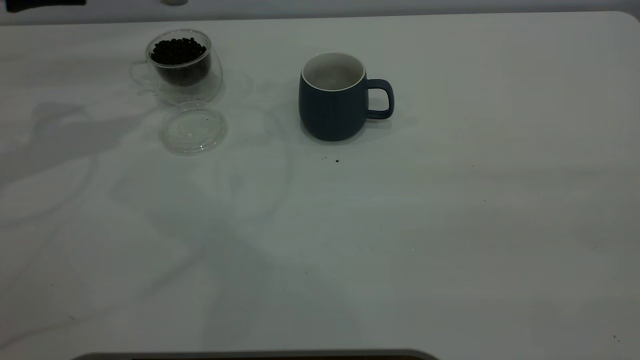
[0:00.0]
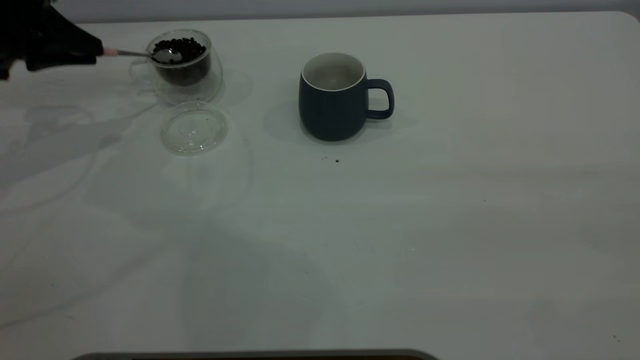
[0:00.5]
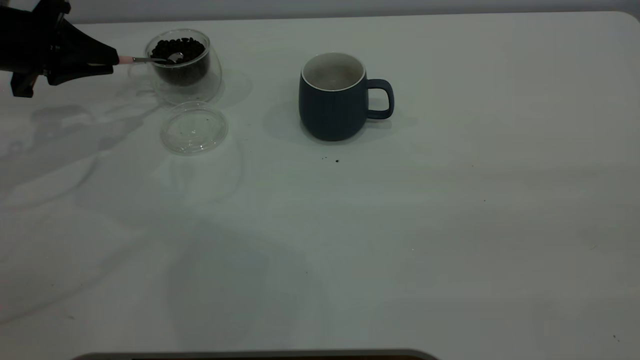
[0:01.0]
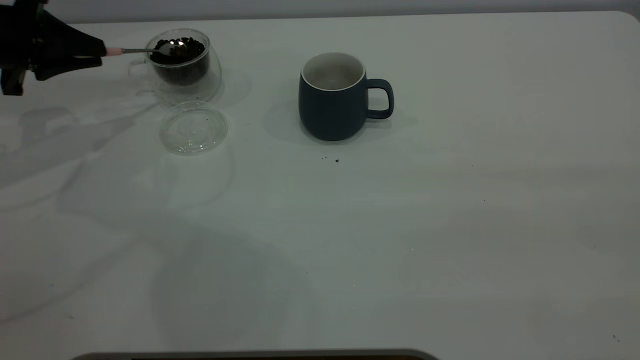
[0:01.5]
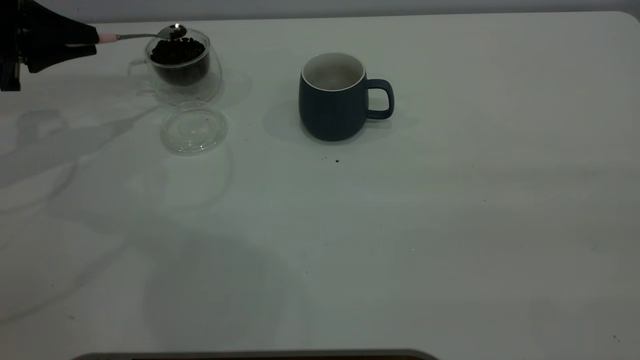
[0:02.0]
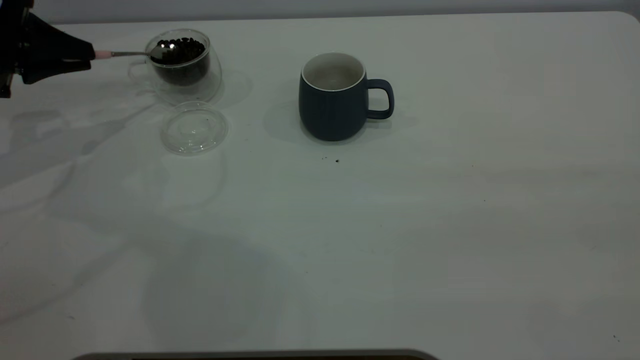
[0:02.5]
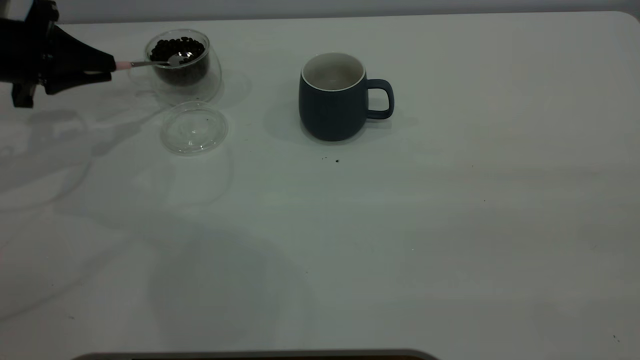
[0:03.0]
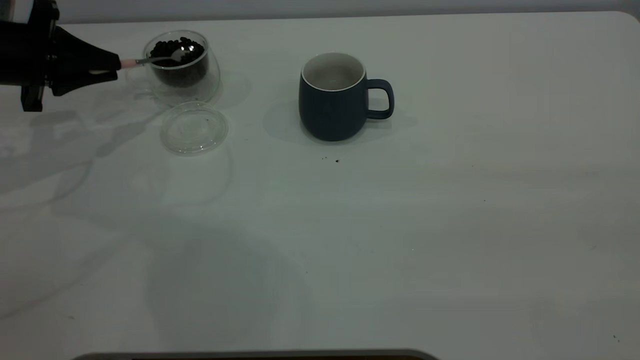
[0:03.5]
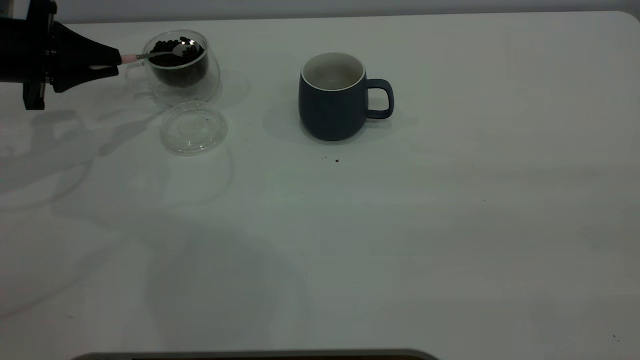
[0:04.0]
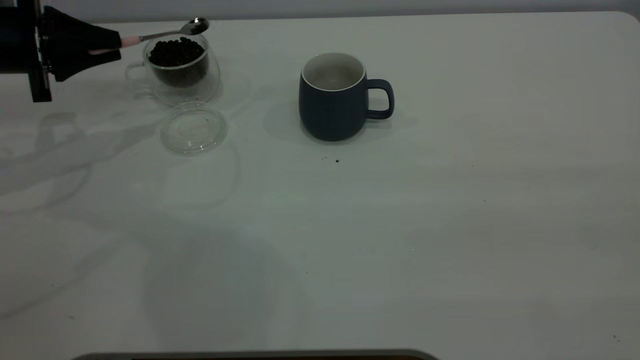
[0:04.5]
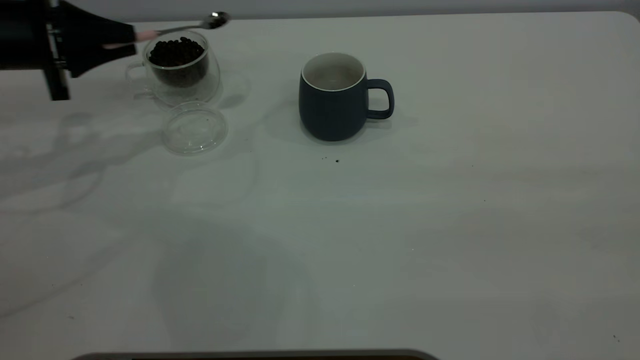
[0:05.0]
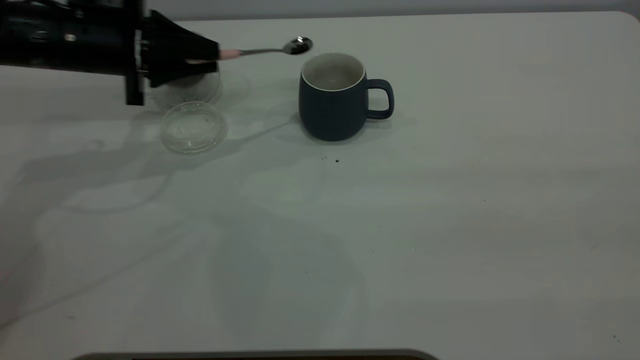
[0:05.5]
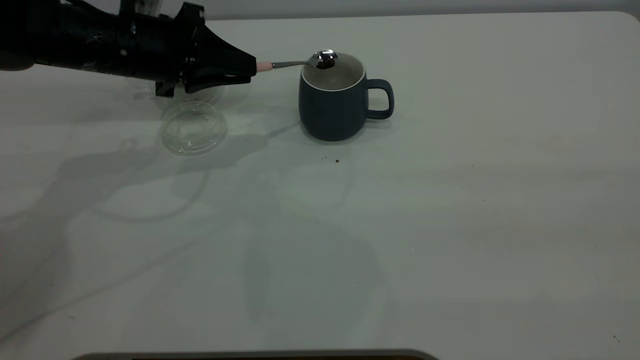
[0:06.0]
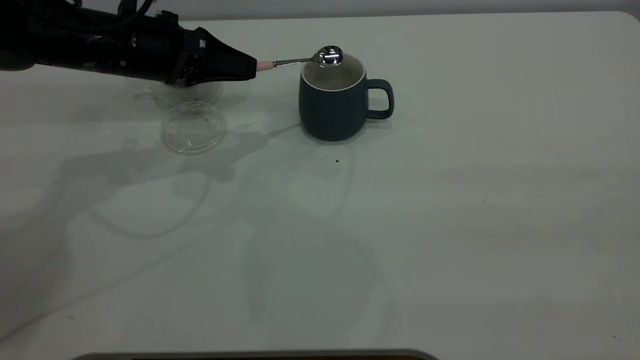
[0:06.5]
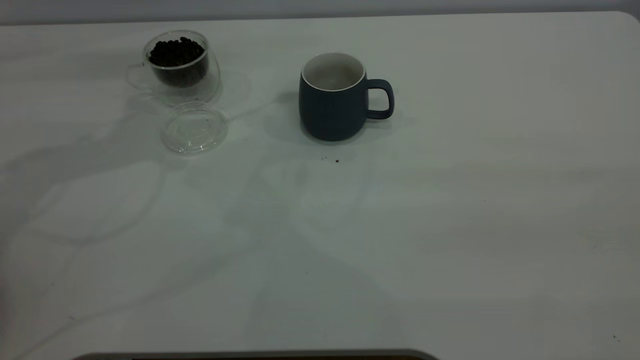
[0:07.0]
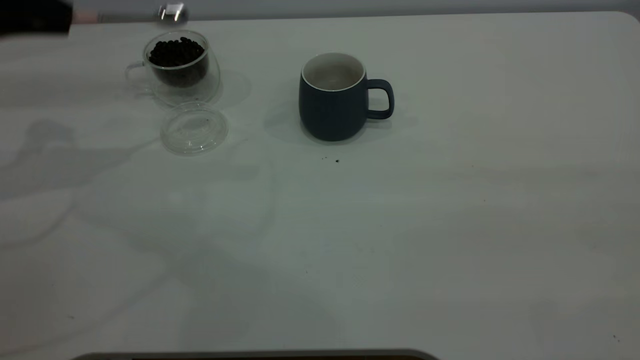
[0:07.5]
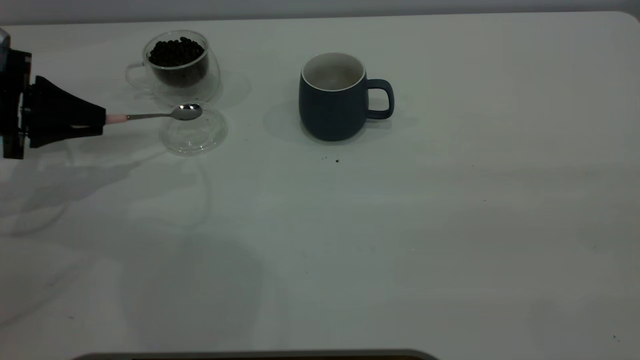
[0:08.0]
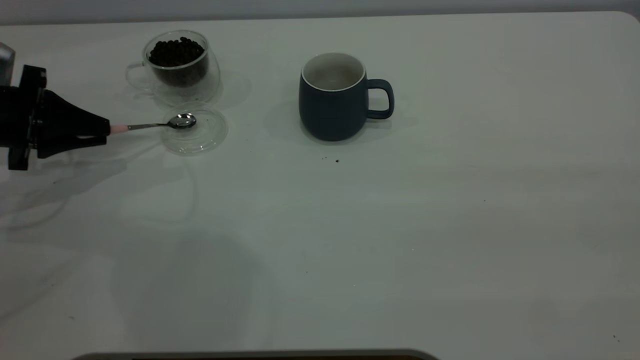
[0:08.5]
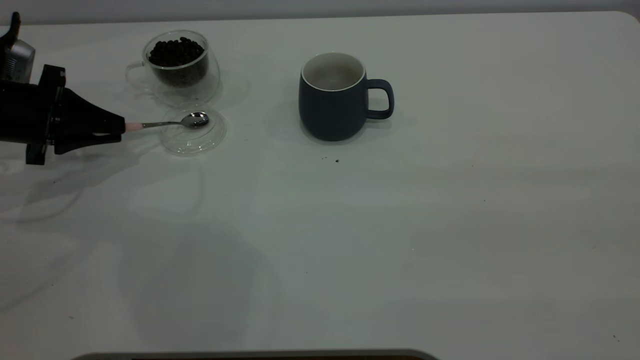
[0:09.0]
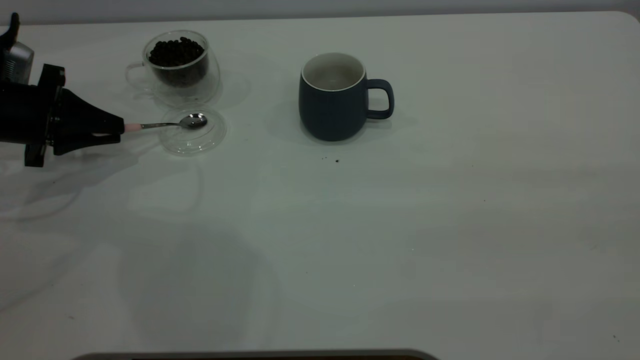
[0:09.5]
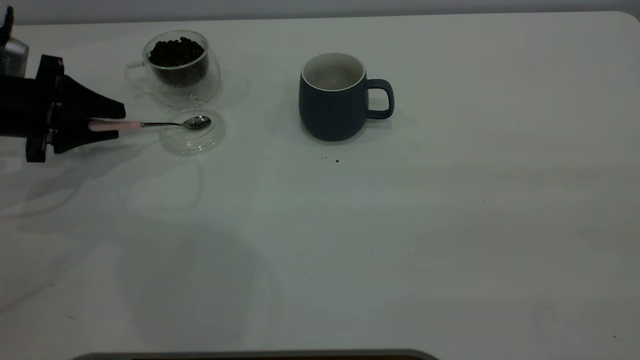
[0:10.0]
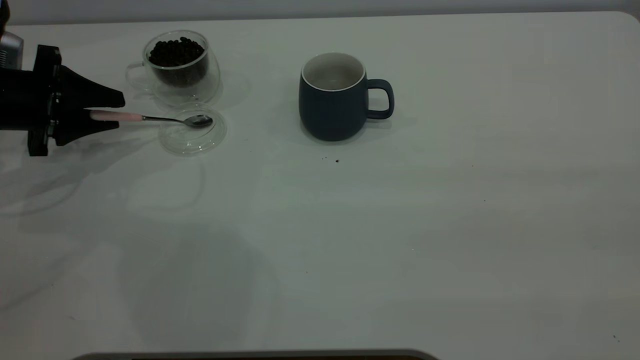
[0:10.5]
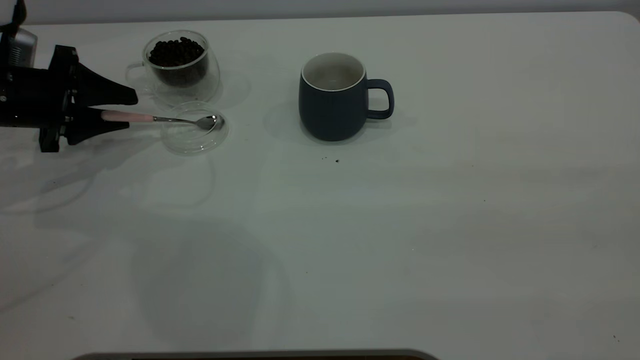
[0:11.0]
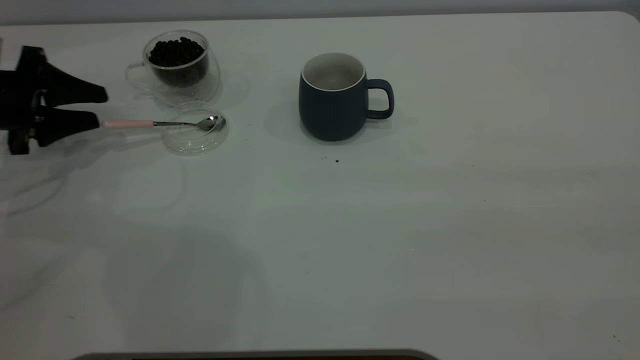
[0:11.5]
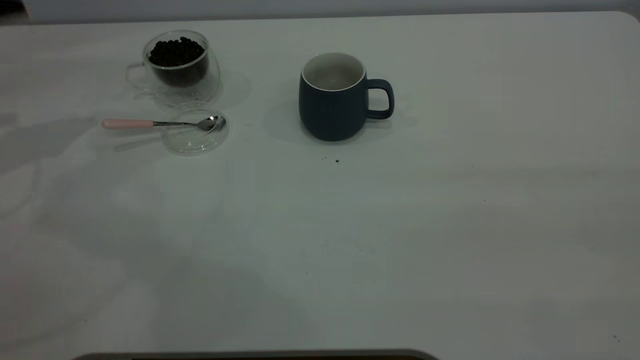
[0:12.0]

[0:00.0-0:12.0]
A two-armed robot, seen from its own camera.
Task of the whole recording: the right gripper place the grey cup in the center of the table, the left gripper take the pink spoon from the cup lid and scoop out the coffee beans from the coffee cup and put them into the grey cup, the left gripper put the spoon back into the cup lid.
Step, 0:00.0 to 0:06.5: Scoop a spoonful of beans into the cup.
Step, 0:07.0 to 0:11.5: Place the spoon back in its original place.
0:00.0 to 0:02.0: The left gripper goes approximately 5 cm downward.
0:02.0 to 0:04.0: The grippers make only small movements.
0:04.0 to 0:06.0: The left gripper is displaced to the right by approximately 15 cm.
0:06.0 to 0:08.0: The left gripper moves to the left, roughly 15 cm.
0:08.0 to 0:10.0: The left gripper opens.
0:10.0 to 0:12.0: The left gripper heads upward, covering about 15 cm.
